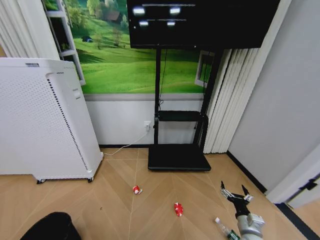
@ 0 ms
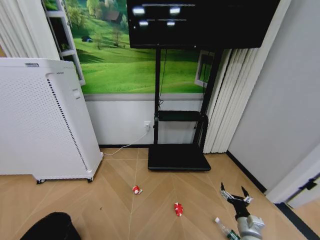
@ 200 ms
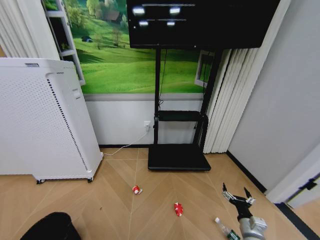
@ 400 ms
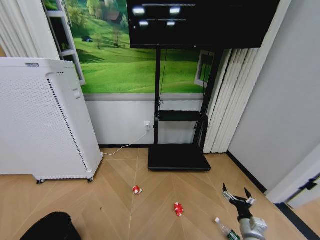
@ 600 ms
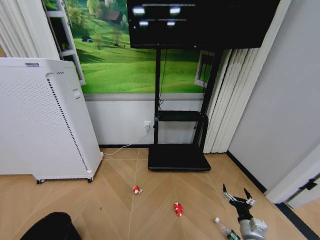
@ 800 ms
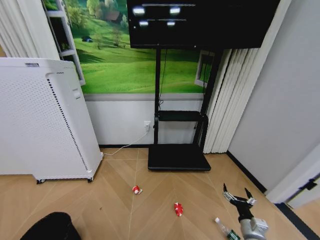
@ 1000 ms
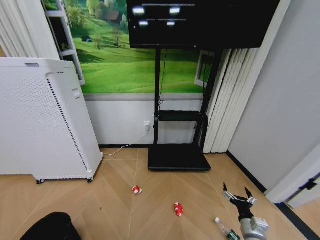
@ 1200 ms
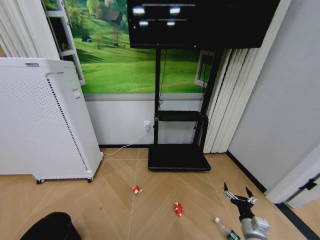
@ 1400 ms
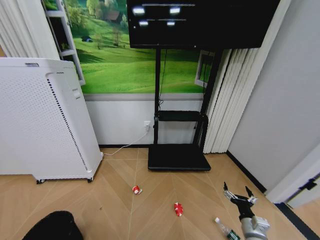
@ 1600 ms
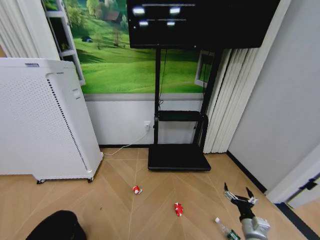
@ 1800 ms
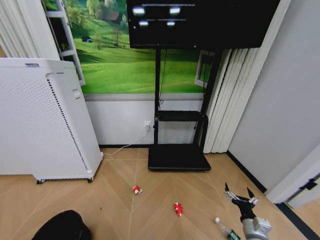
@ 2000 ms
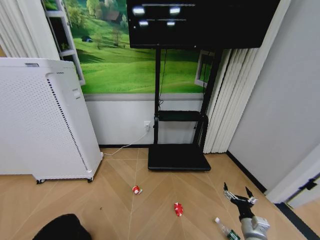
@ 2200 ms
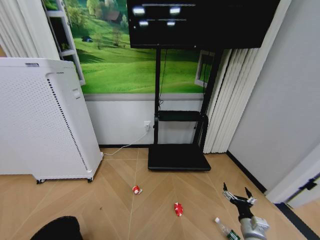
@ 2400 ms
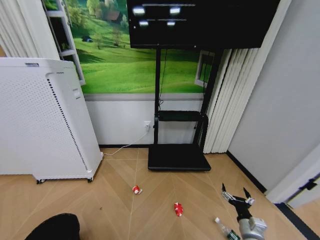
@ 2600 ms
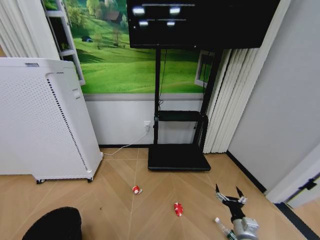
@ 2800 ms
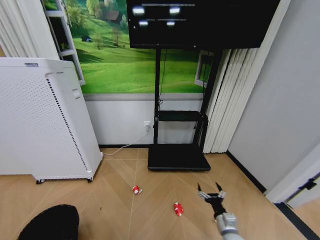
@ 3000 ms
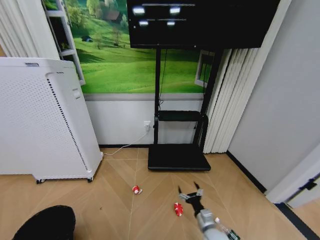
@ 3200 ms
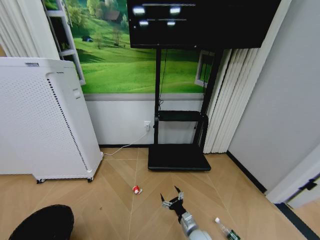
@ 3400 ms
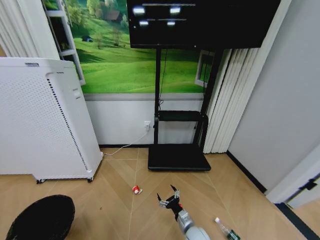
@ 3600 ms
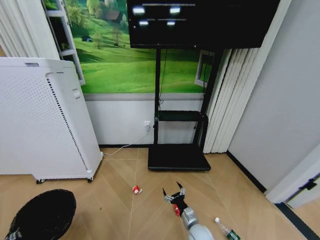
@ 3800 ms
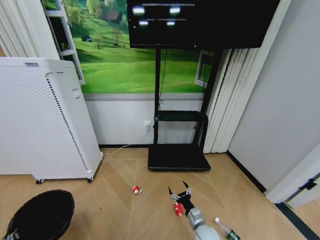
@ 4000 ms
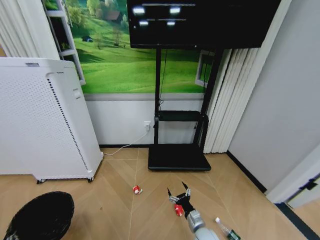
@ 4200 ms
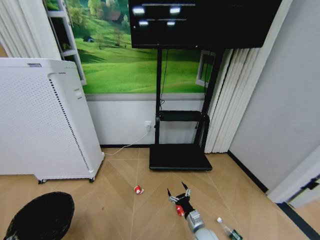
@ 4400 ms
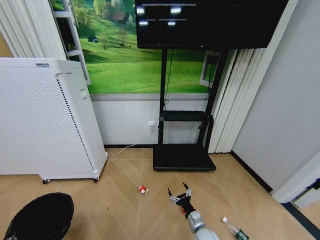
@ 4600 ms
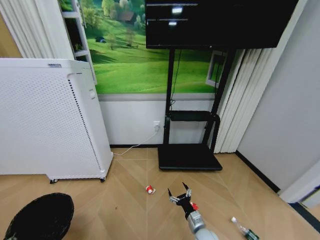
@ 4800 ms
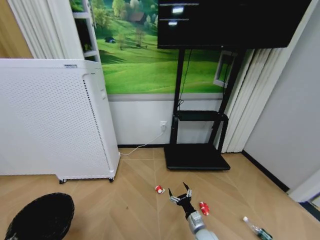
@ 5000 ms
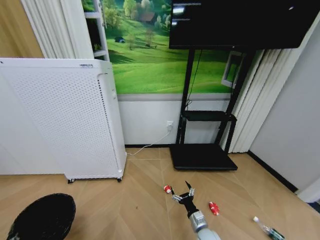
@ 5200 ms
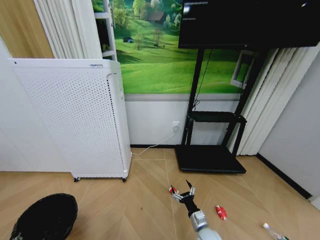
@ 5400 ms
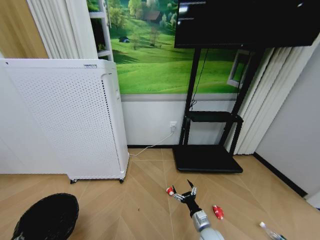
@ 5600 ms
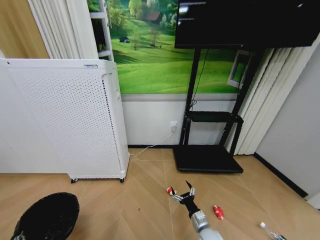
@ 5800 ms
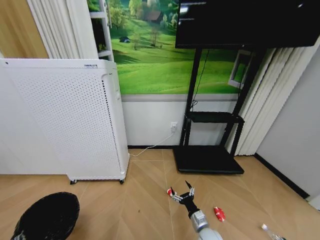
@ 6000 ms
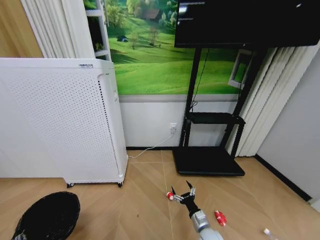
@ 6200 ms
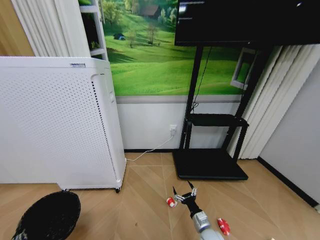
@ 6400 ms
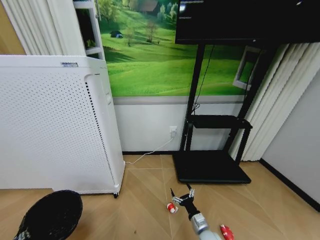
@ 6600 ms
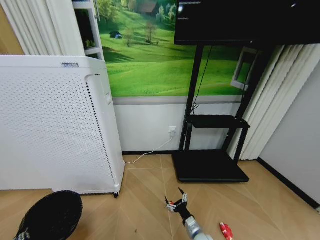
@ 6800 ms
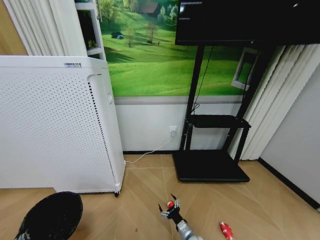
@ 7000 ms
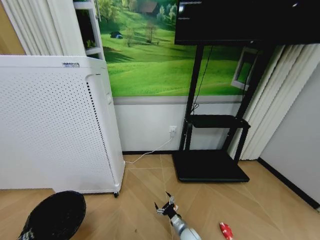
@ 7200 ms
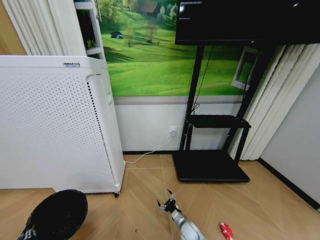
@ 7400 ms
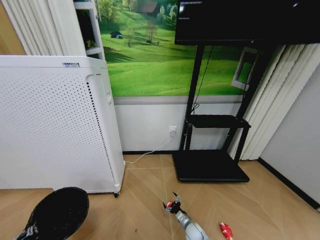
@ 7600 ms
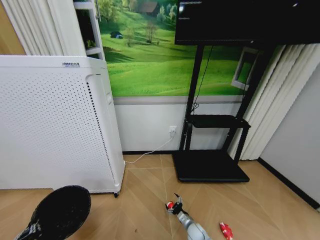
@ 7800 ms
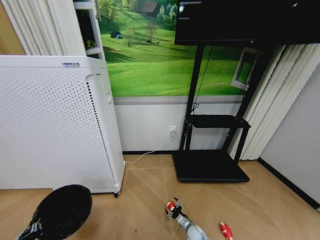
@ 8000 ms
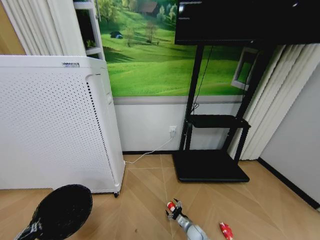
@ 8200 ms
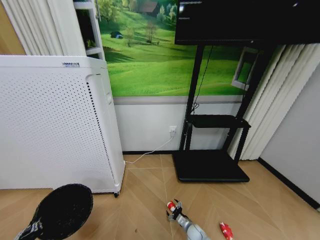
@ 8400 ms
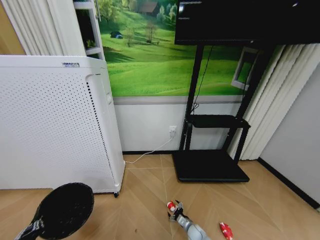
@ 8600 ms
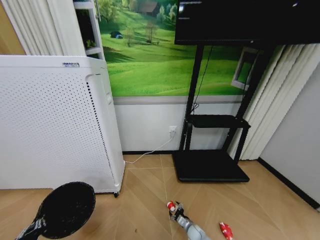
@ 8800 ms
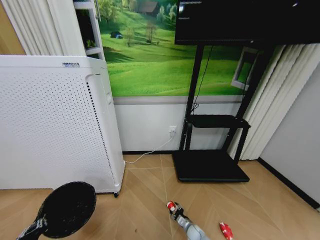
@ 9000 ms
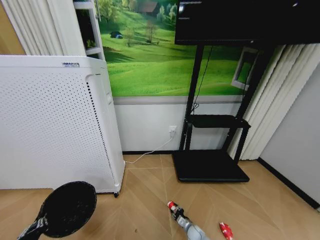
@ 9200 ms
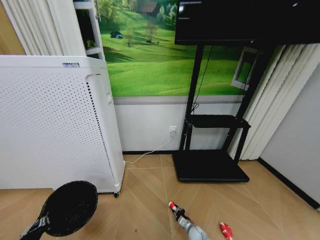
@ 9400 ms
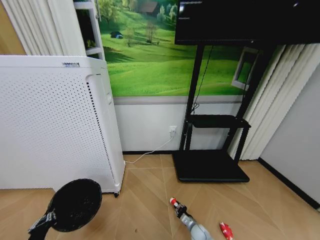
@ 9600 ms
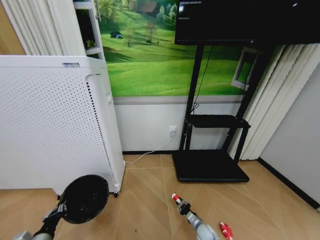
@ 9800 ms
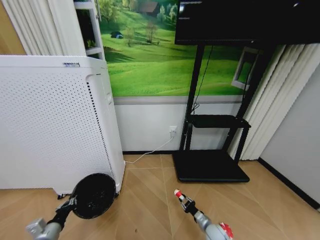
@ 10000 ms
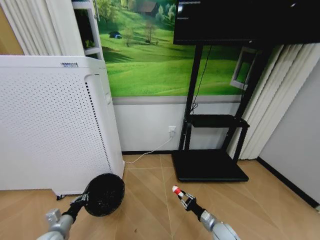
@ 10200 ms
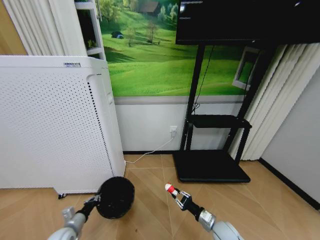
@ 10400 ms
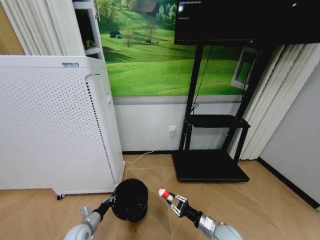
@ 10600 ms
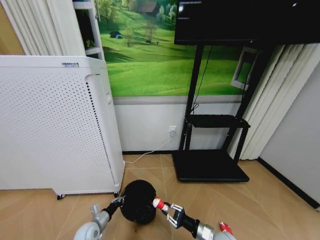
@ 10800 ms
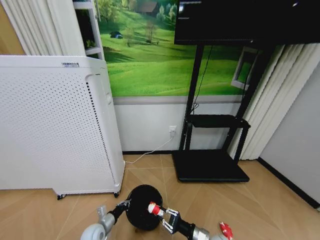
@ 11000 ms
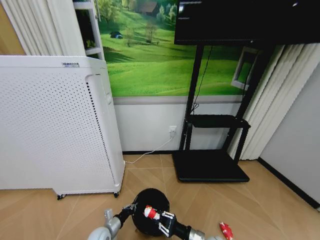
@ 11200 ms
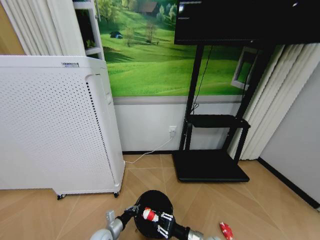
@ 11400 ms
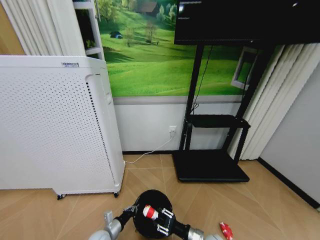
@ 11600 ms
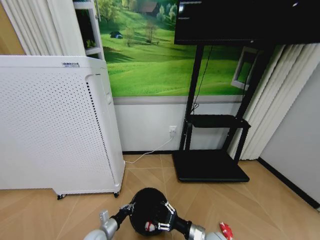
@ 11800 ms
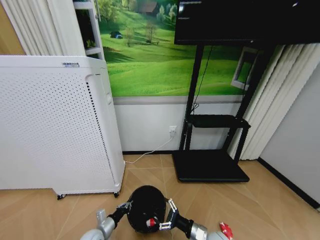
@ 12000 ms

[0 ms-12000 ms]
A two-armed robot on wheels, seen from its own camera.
Task of the whole recording: Pick up the trash bin and place the garbage on the floor into it.
1600 ms to 3000 ms: The left gripper closes its fingers; the right gripper moves to the left, approximately 5 cm.
3000 ms to 4400 ms: The right gripper is displaced to the left by approximately 10 cm.
6000 ms to 7600 ms: The right gripper shifts about 15 cm downward and forward.
9000 ms to 10400 ms: The right gripper shifts approximately 20 cm upward, and closes up, while the left gripper shifts approximately 15 cm forward and downward.
10400 ms to 12000 ms: The right gripper goes roughly 5 cm to the left, and opens its fingers. The left gripper is displaced to the right by some 10 cm.

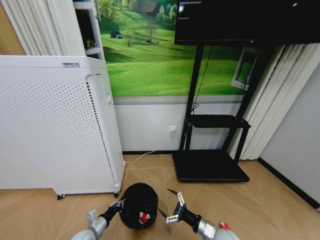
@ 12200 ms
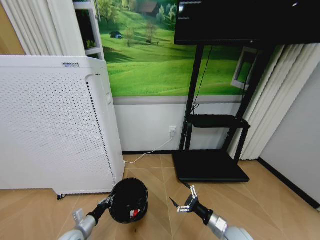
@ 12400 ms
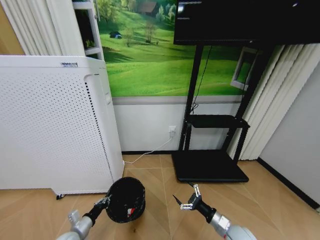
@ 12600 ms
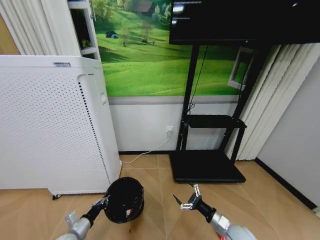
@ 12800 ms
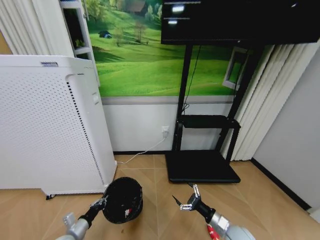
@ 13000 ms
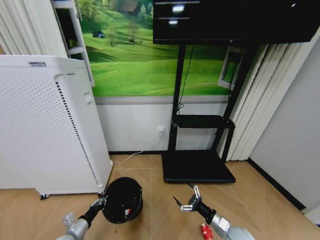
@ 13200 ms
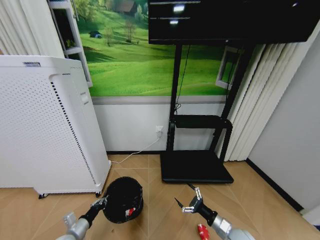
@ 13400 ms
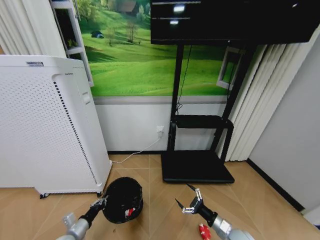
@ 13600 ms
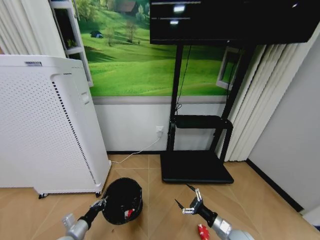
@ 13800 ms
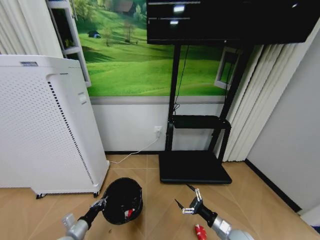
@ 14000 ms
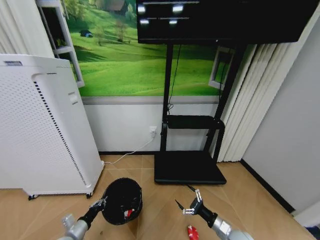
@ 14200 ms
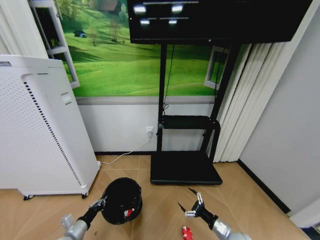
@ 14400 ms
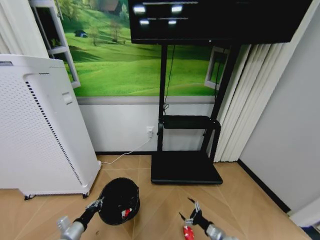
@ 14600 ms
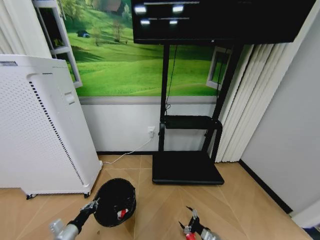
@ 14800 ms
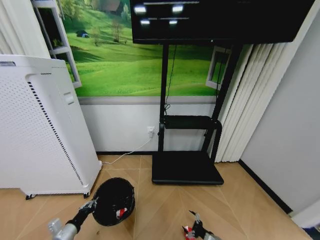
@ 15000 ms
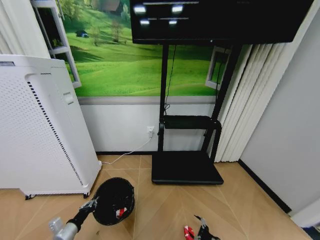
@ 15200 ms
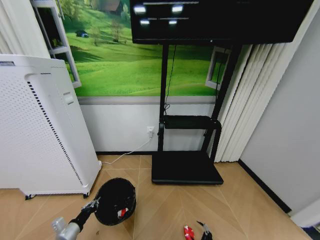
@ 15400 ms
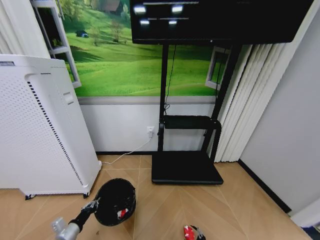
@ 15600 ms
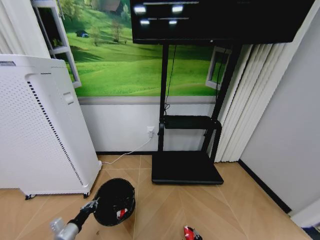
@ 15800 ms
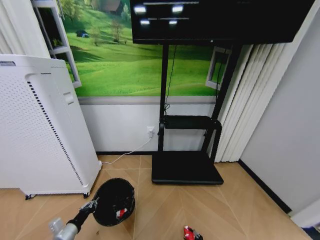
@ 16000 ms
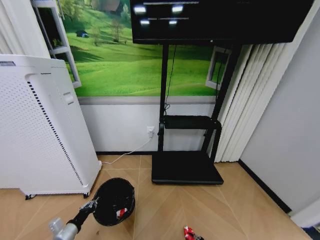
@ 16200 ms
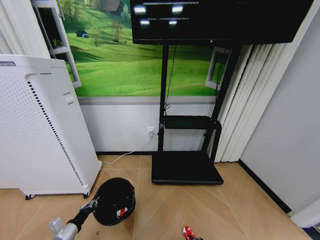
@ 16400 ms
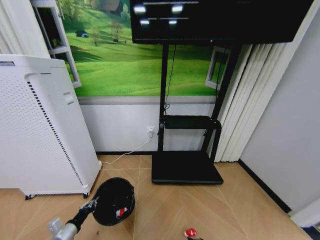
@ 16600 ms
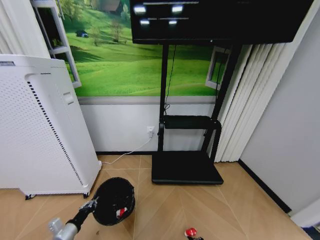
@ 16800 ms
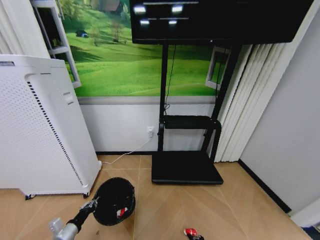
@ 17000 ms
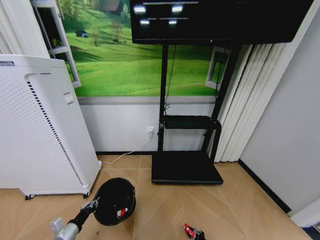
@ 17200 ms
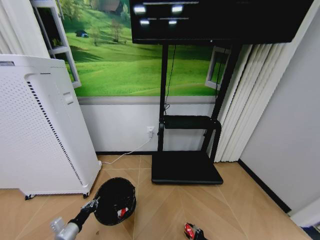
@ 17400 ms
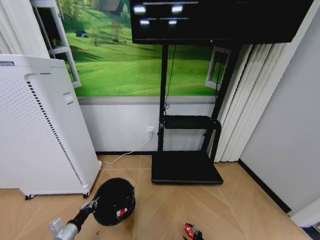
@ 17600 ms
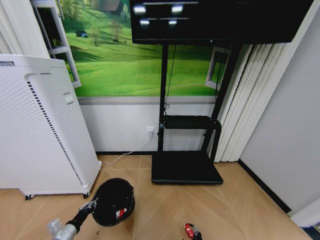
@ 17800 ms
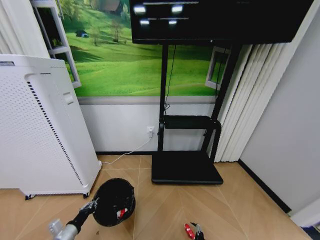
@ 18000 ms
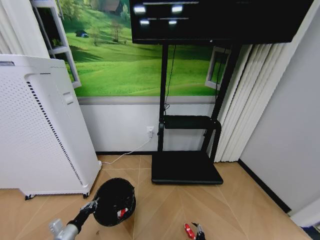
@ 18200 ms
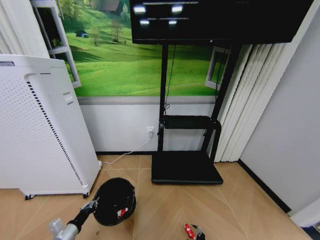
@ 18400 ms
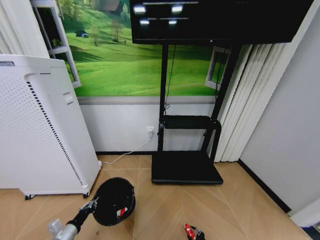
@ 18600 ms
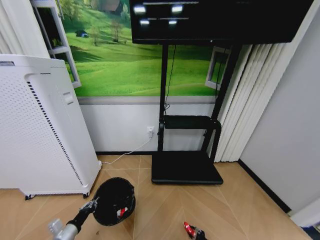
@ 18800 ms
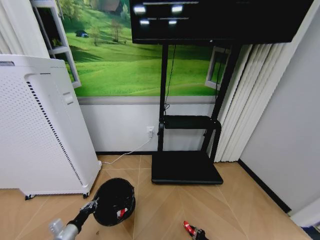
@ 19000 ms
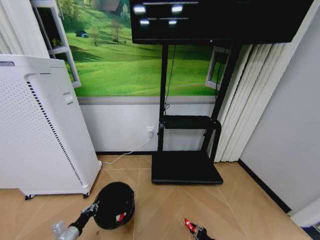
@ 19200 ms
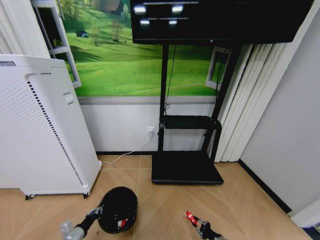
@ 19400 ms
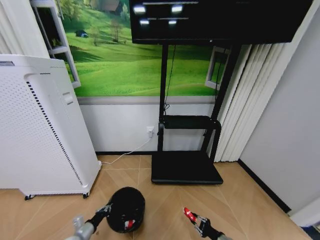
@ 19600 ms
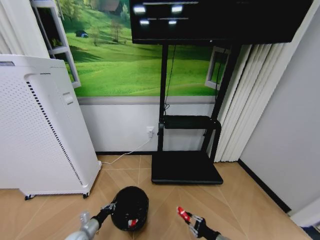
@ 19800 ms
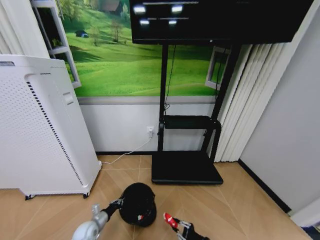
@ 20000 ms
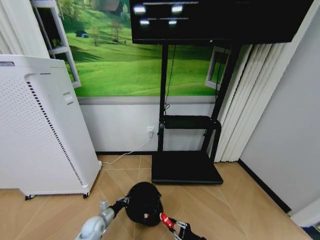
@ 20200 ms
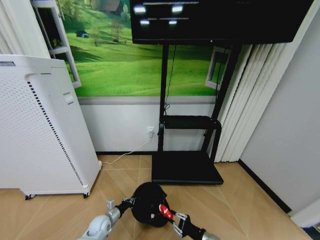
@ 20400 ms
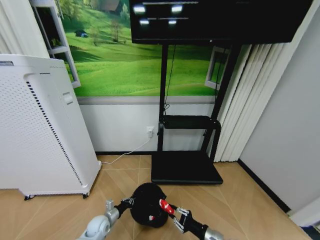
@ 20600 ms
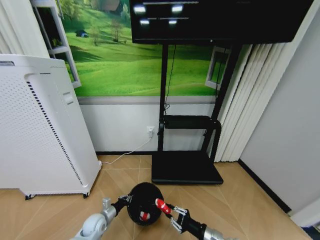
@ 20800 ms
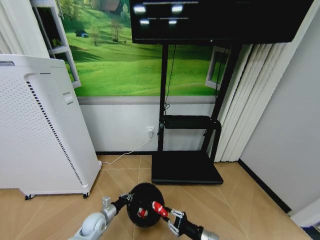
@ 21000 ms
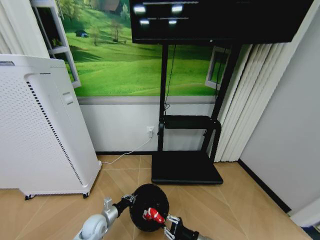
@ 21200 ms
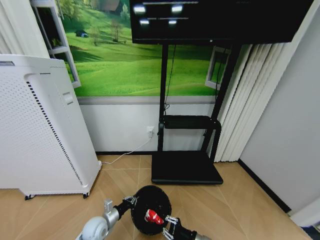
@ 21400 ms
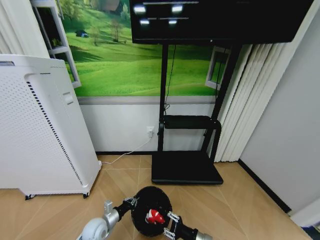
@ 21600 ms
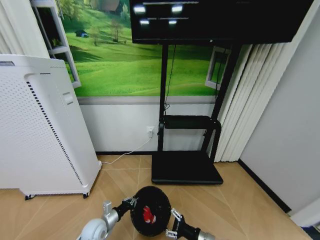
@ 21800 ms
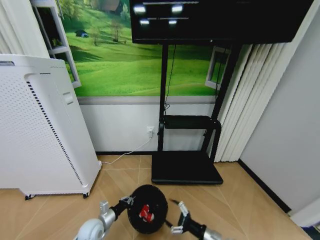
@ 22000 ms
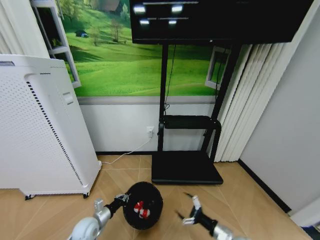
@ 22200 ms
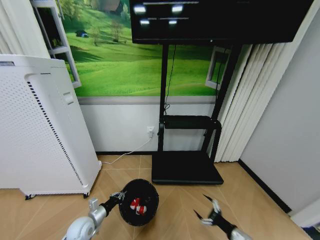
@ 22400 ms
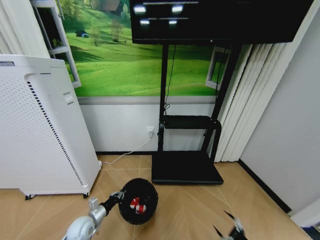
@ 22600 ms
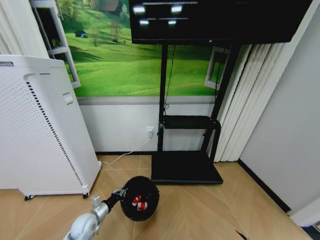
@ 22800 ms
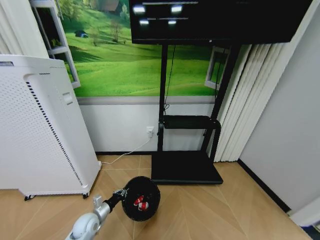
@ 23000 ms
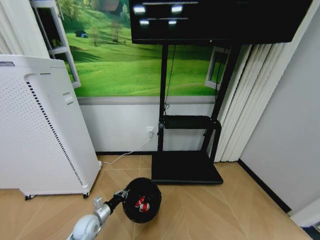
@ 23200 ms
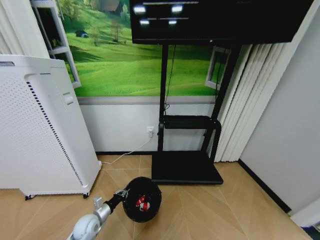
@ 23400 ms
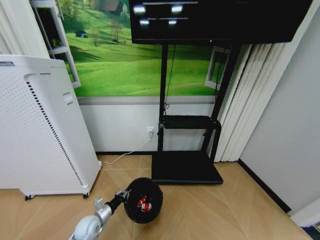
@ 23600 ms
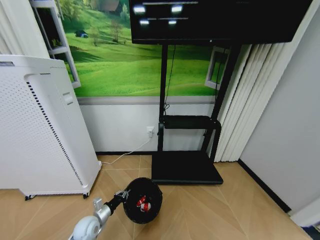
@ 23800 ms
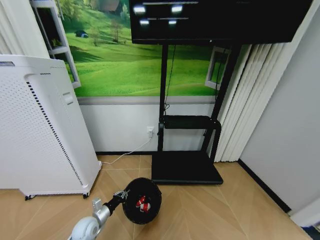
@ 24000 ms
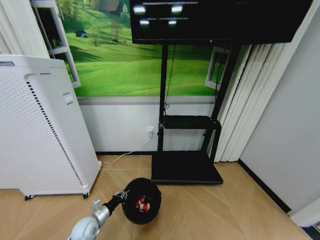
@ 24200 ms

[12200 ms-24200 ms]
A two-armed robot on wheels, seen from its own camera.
Task of the whole recording: Pick up the trash bin and place the garbage on the floor into it.
12200 ms to 13800 ms: The right gripper moves to the right, some 5 cm. The left gripper heads to the left, covering roughly 5 cm.
13800 ms to 15200 ms: The right gripper shifts about 15 cm downward.
18200 ms to 19800 ms: The right gripper is displaced upward by approximately 15 cm, and closes; the left gripper shifts roughly 10 cm downward and forward.
19800 ms to 21200 ms: The left gripper heads to the right and forward, covering approximately 10 cm. Meanwhile the right gripper moves to the left and upward, approximately 10 cm.
21200 ms to 22600 ms: The left gripper changes place by about 5 cm. Meanwhile the right gripper travels to the right by some 20 cm, and opens.
22600 ms to 24200 ms: The right gripper is displaced downward, backward and to the right by roughly 15 cm, and closes.
